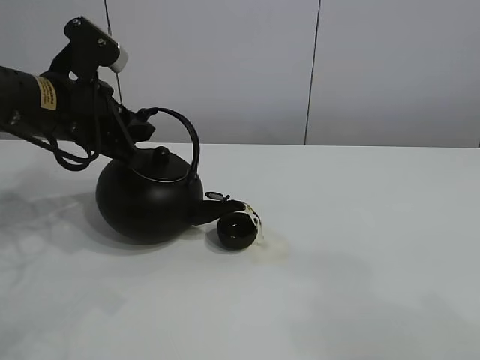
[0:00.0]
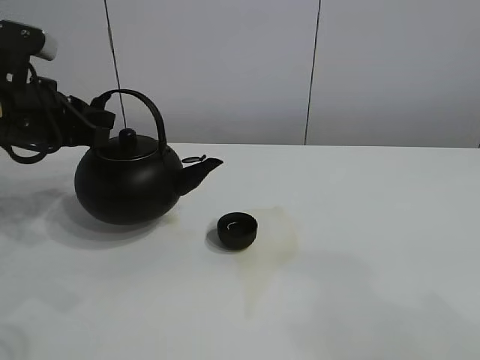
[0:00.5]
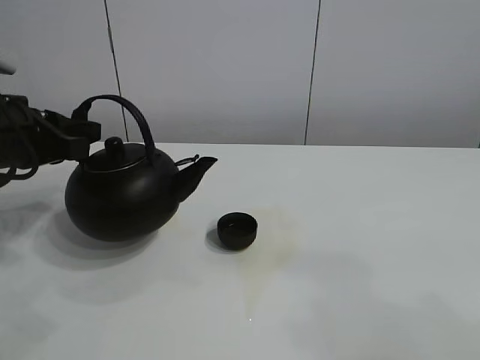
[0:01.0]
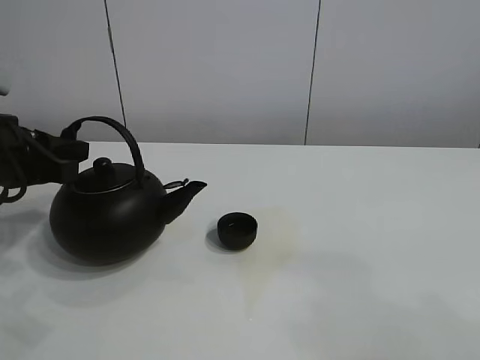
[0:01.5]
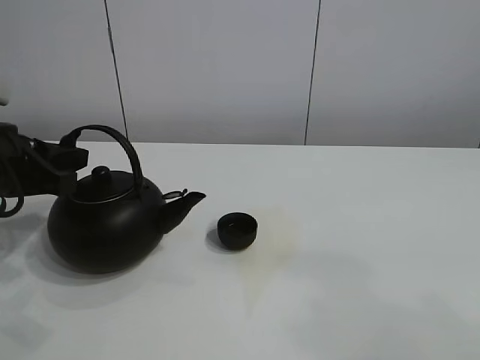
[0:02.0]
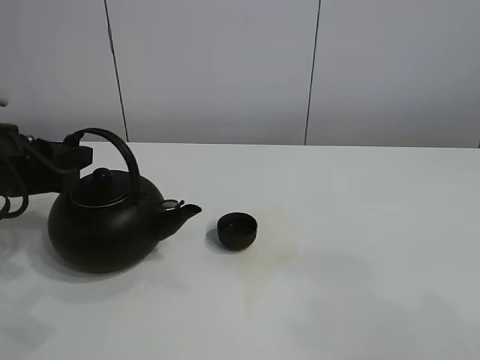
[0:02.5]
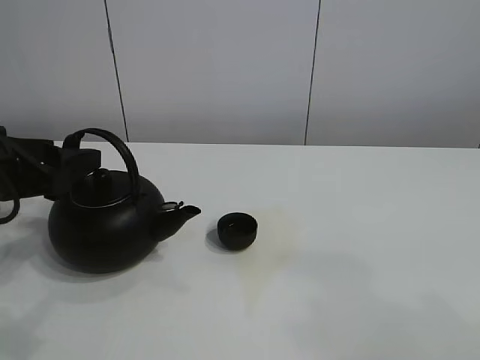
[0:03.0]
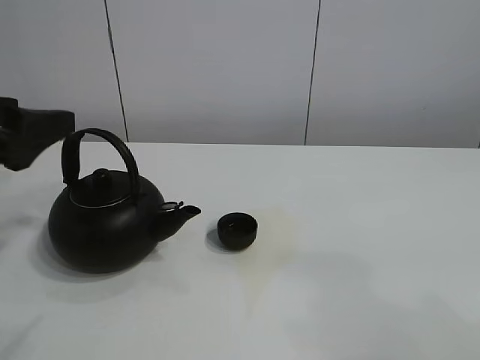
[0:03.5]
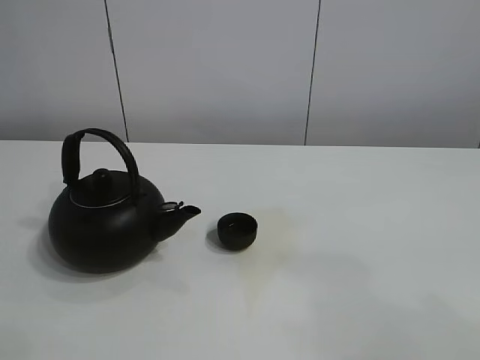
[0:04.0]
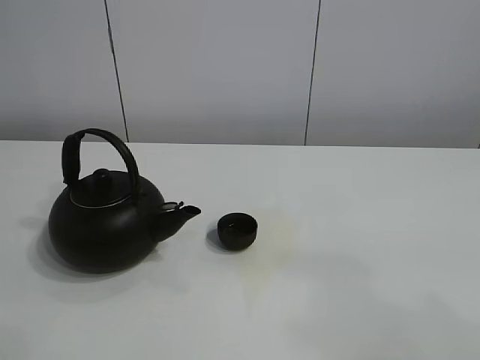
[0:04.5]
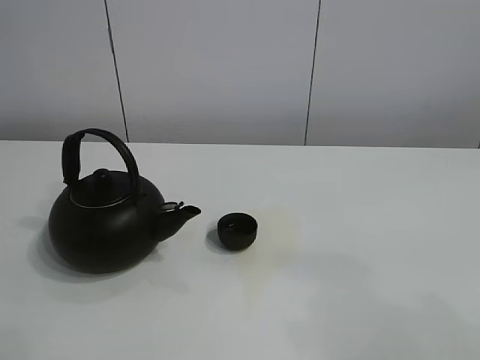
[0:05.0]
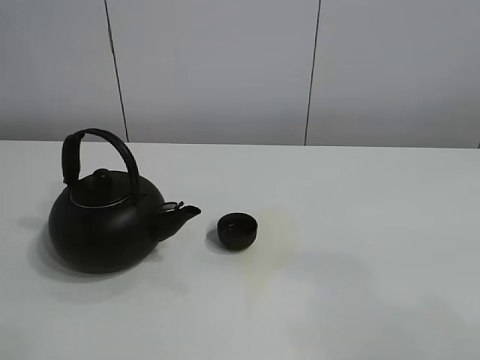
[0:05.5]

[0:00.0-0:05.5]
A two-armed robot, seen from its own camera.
Task of the whole recording: pour tea into the teacup.
0:00.0 to 0:02.0: The left gripper travels to the left and backward by some 10 cm.
0:02.0 to 0:03.5: The left gripper heads upward and backward, covering some 10 cm, and opens up.
0:03.5 to 0:05.5: The left gripper heads backward, covering about 25 cm.
